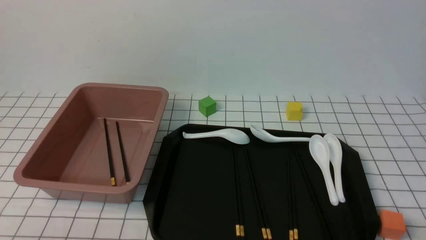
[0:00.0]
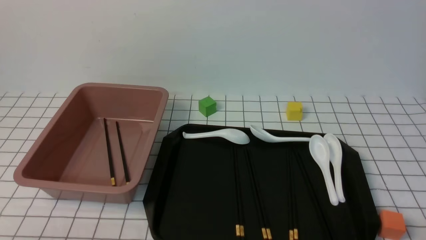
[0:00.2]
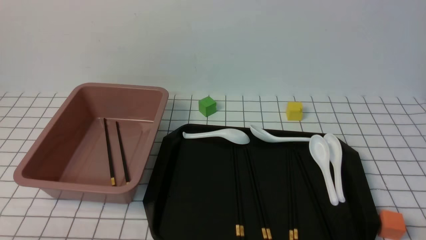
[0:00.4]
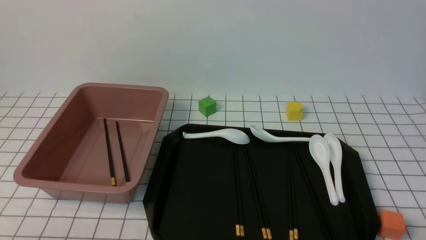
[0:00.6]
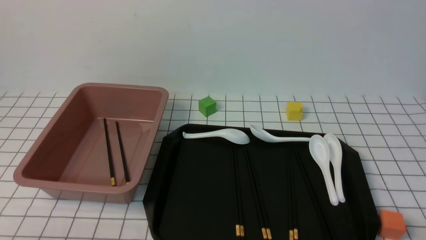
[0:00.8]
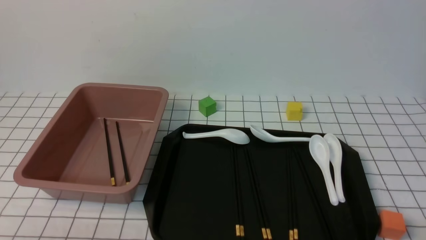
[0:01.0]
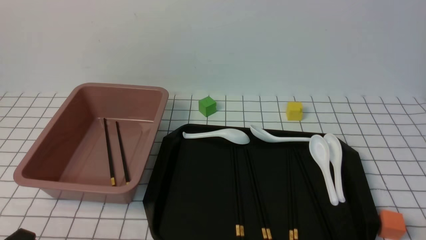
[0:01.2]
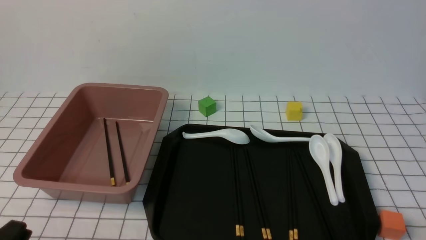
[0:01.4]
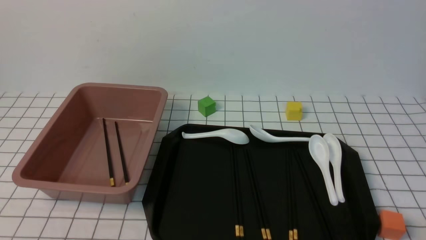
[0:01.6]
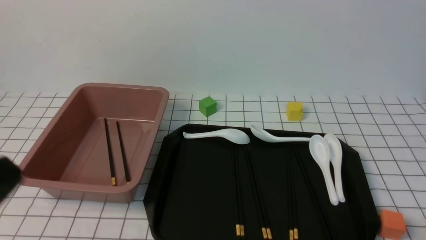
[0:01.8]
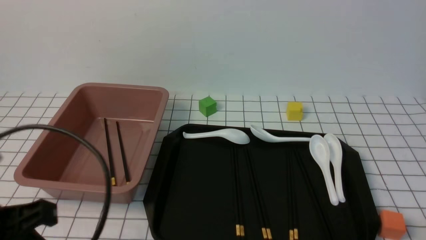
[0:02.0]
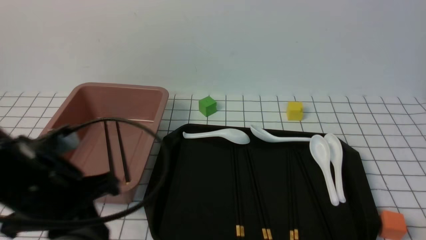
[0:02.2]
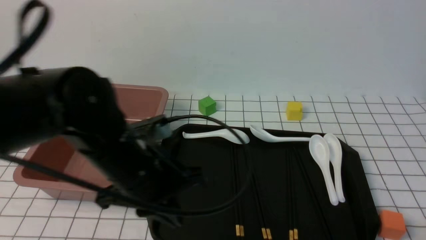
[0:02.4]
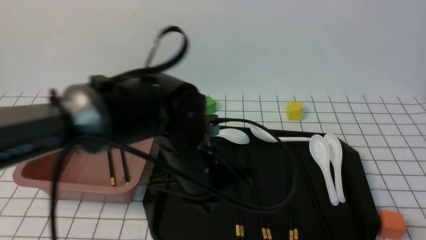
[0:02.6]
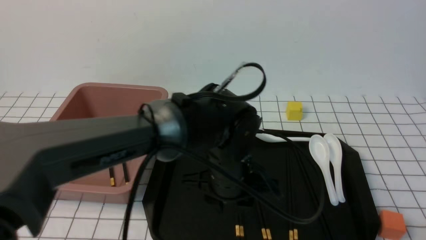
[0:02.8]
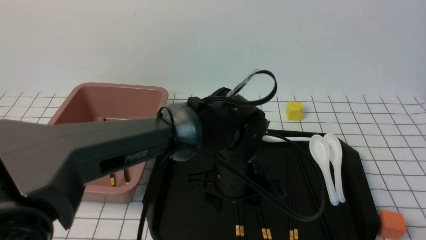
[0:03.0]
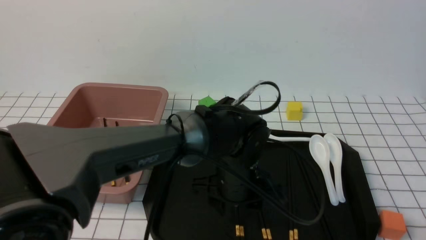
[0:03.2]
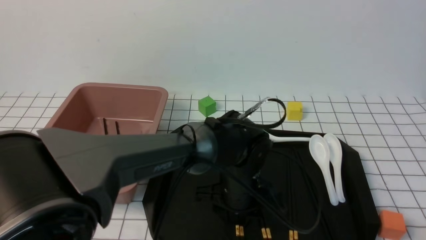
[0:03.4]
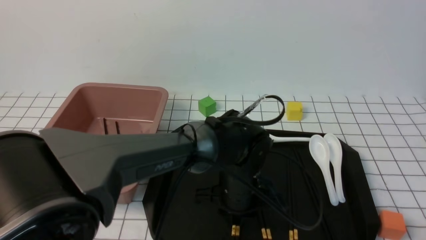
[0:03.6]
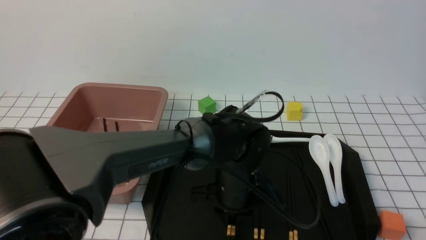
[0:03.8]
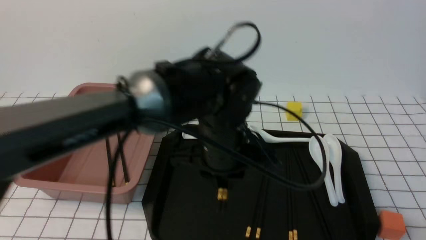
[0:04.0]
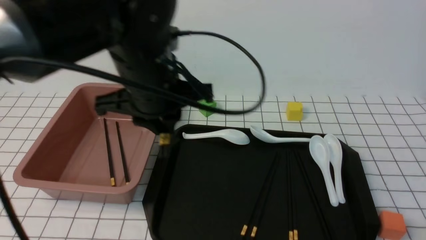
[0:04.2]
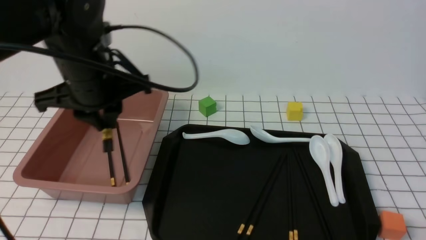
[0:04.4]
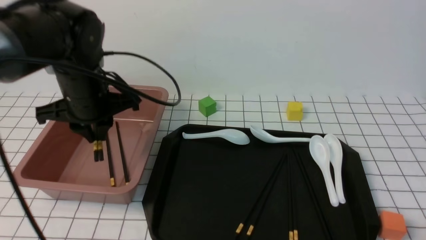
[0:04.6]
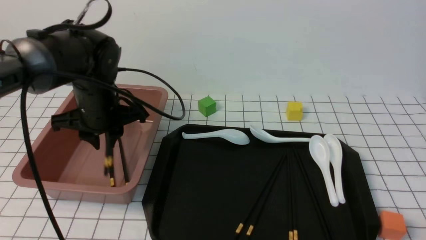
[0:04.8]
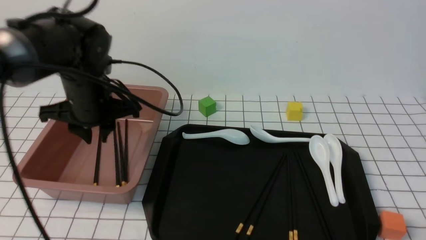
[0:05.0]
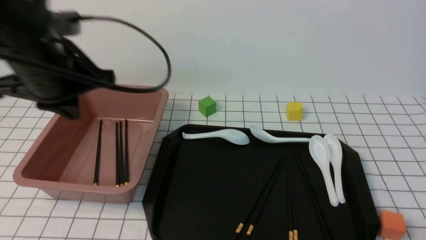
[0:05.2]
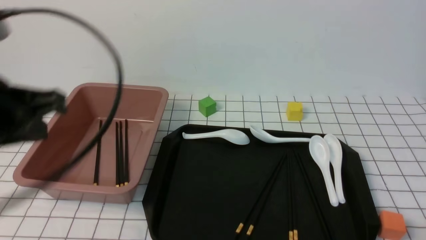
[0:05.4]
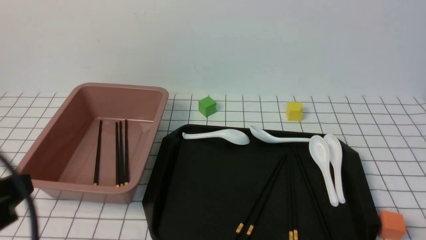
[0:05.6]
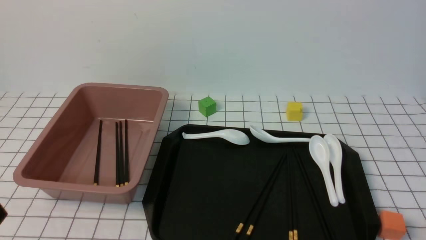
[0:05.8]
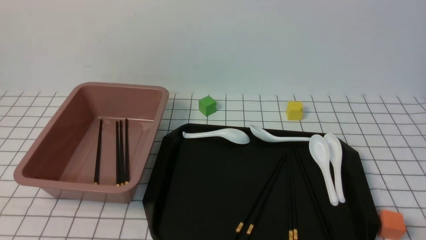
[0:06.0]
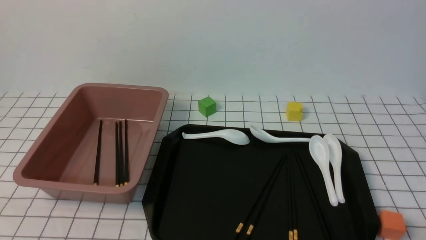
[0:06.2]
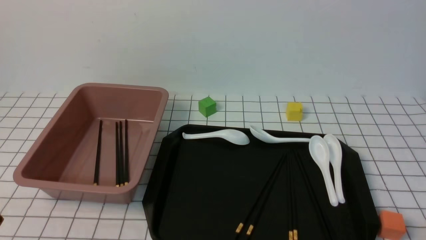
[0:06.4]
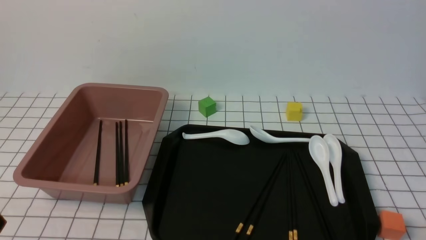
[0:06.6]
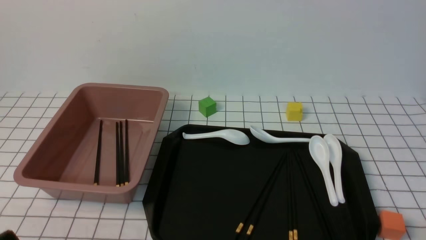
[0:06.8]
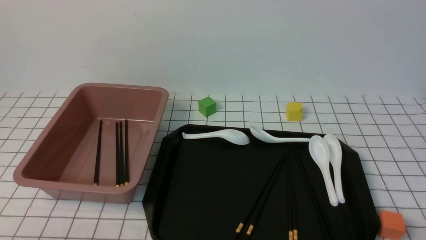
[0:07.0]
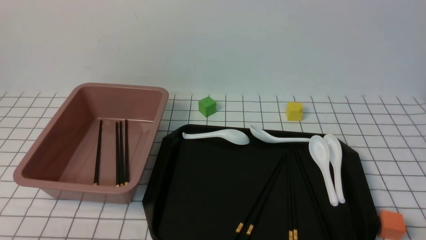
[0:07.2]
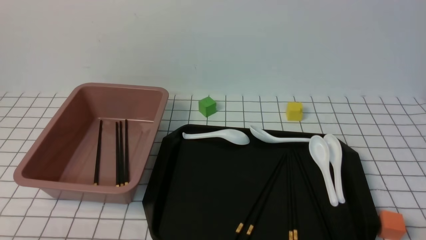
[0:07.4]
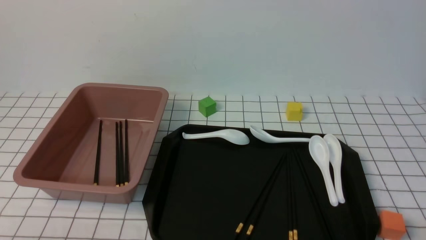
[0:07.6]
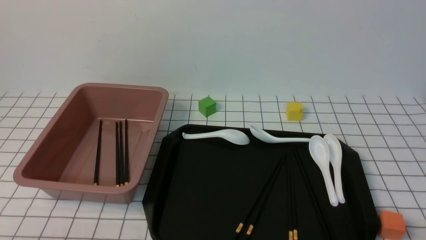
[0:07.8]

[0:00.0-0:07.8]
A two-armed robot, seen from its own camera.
Step, 0:00.0 to 0:04.0: use the left arm to grab a pair of chopsticks.
Step, 0:04.2 to 0:05.2: use the left arm to put the chopsticks into the lunch box.
0:01.6 to 0:03.2: The left gripper goes approximately 40 cm to the right and forward, and opens its fingers.
0:03.2 to 0:04.6: The left gripper travels to the left and upward by roughly 25 cm, and closes.
0:04.6 to 0:06.2: The left gripper shifts about 30 cm backward, and closes its fingers.

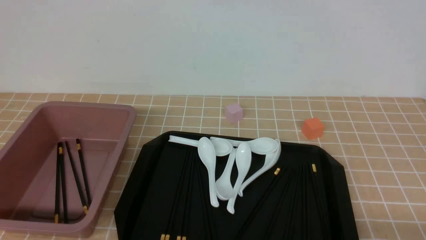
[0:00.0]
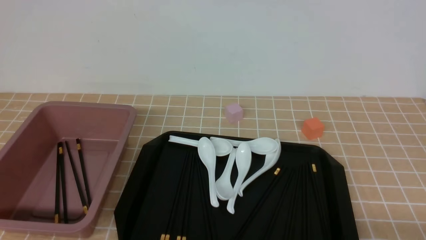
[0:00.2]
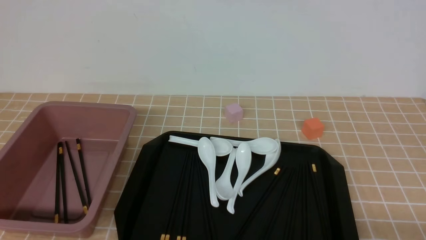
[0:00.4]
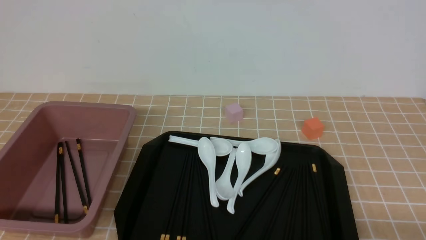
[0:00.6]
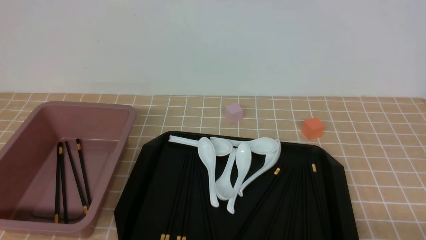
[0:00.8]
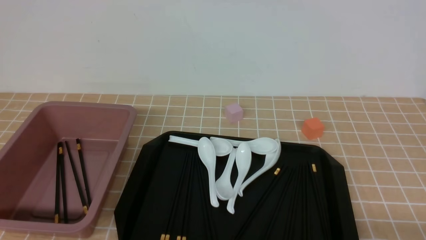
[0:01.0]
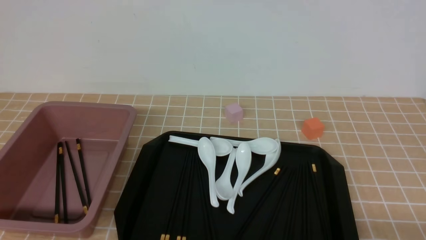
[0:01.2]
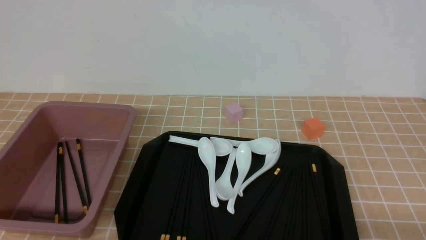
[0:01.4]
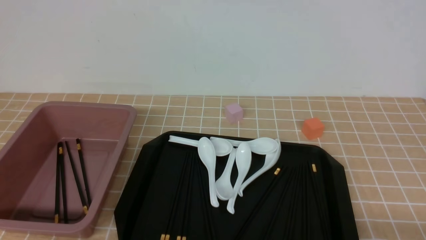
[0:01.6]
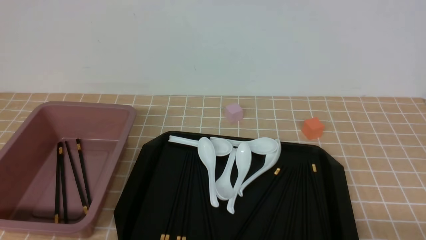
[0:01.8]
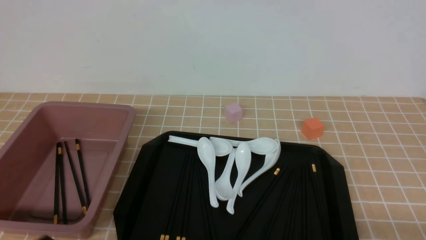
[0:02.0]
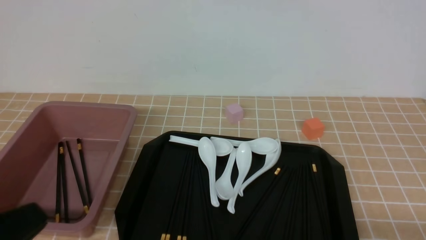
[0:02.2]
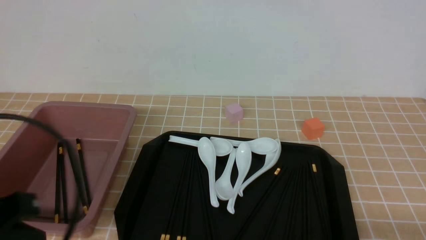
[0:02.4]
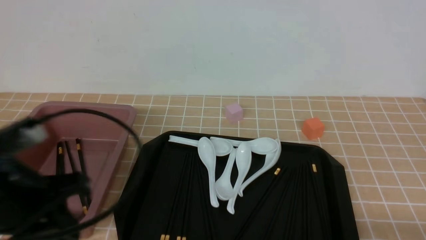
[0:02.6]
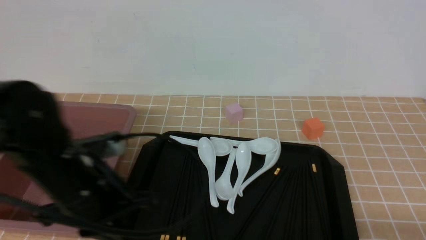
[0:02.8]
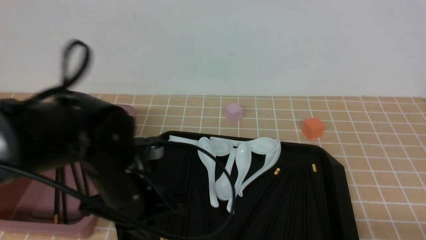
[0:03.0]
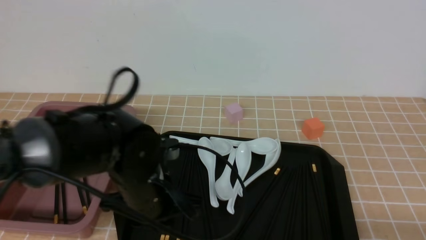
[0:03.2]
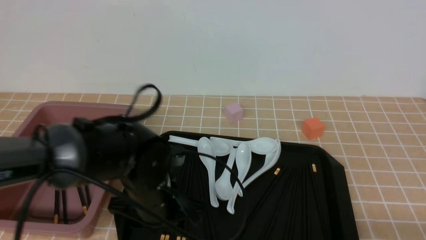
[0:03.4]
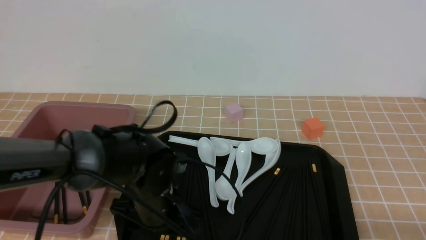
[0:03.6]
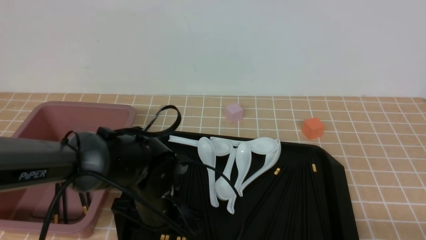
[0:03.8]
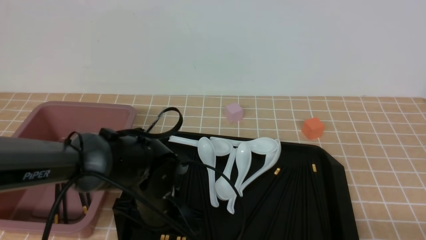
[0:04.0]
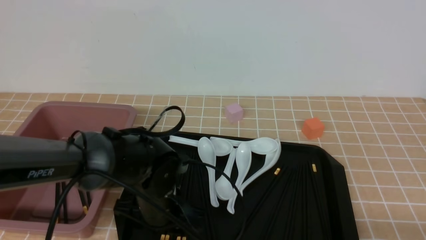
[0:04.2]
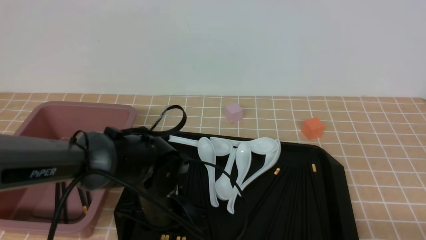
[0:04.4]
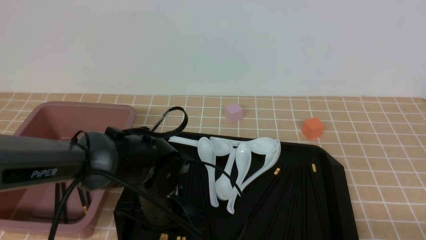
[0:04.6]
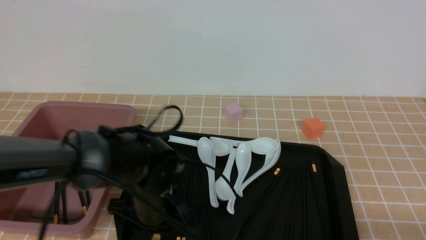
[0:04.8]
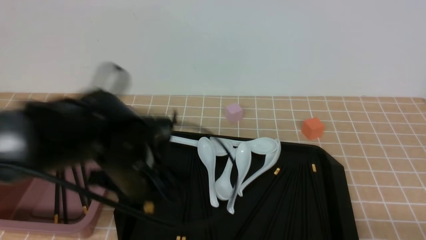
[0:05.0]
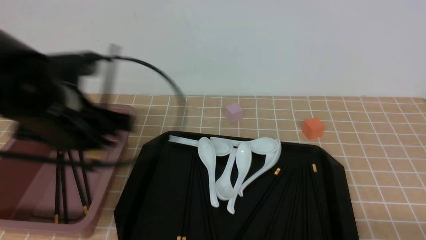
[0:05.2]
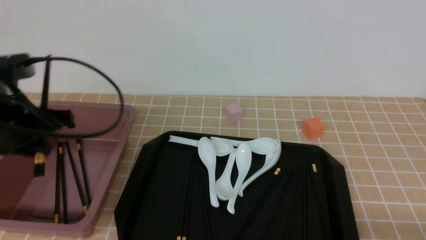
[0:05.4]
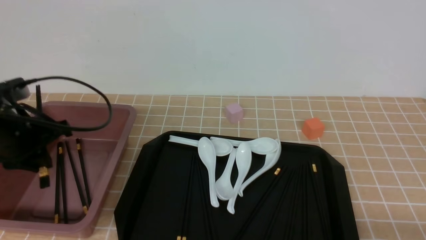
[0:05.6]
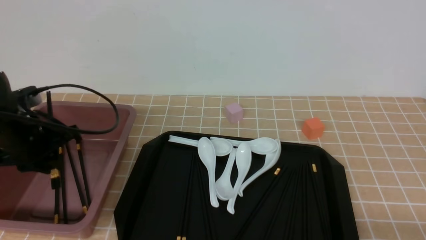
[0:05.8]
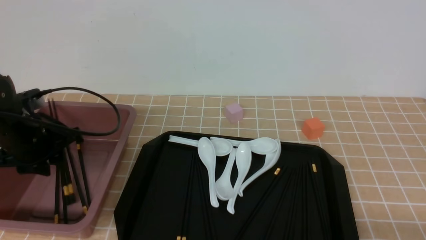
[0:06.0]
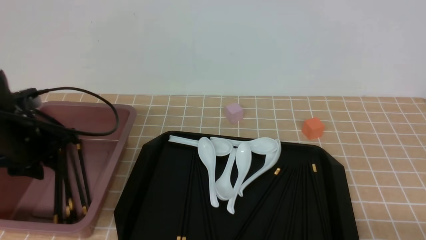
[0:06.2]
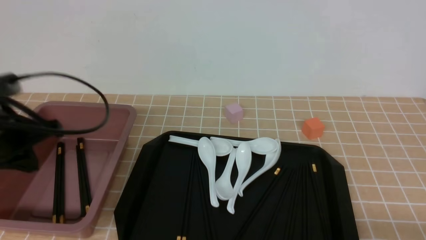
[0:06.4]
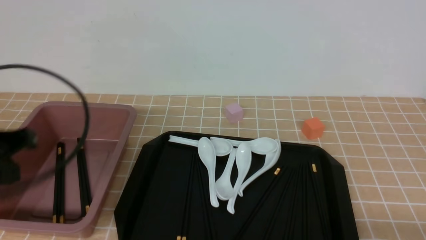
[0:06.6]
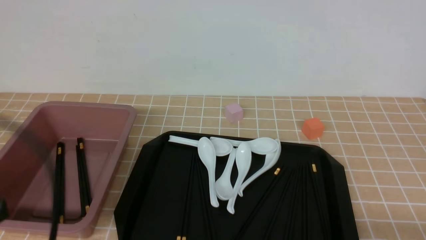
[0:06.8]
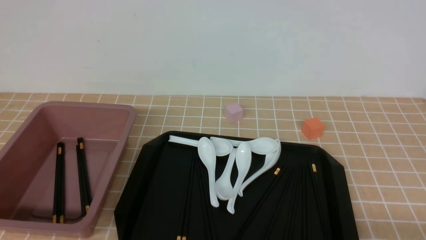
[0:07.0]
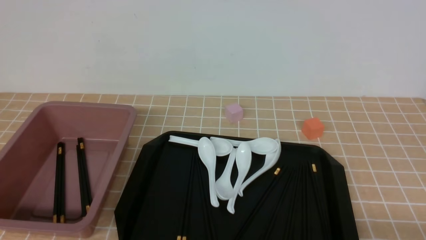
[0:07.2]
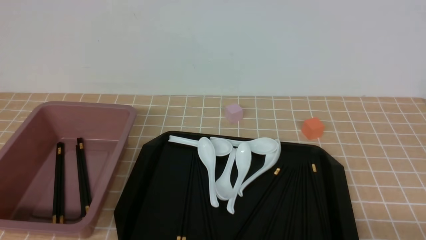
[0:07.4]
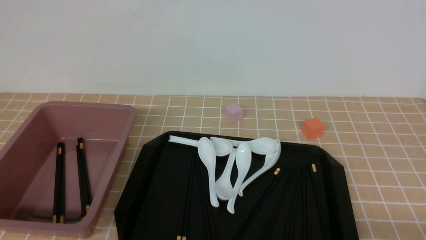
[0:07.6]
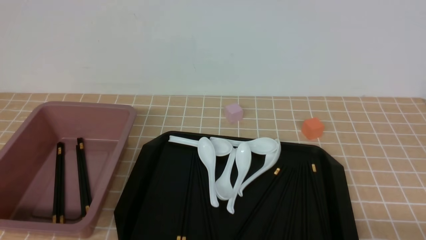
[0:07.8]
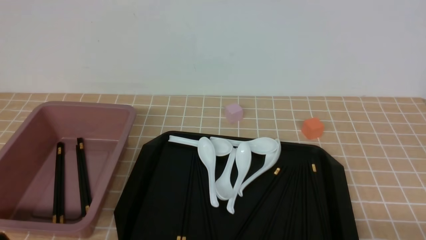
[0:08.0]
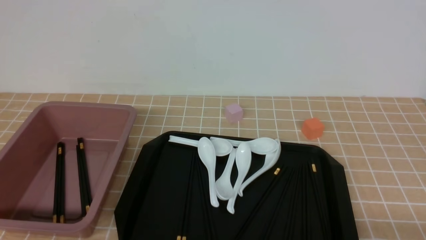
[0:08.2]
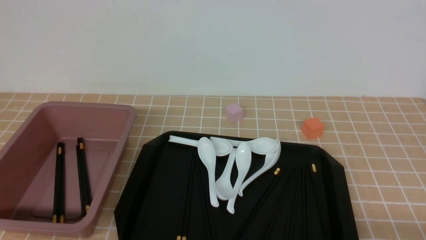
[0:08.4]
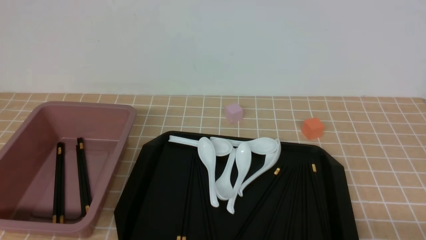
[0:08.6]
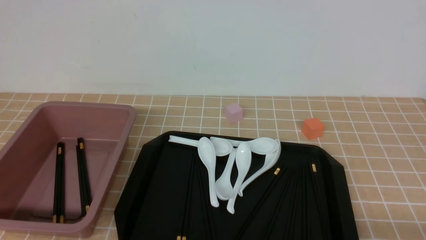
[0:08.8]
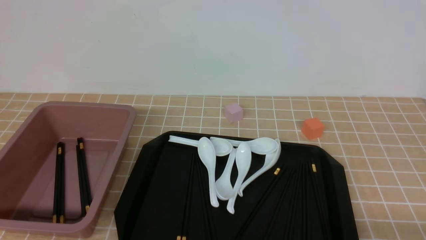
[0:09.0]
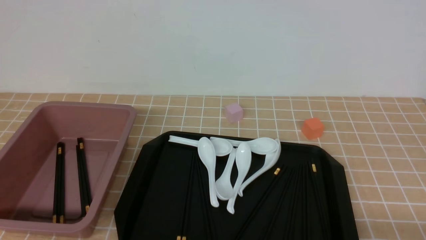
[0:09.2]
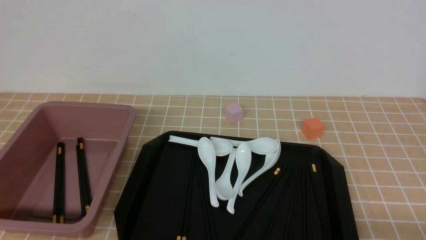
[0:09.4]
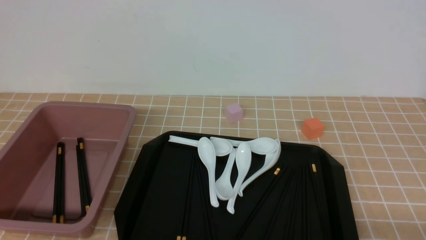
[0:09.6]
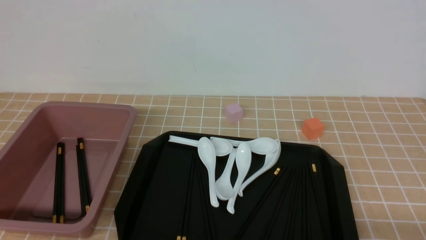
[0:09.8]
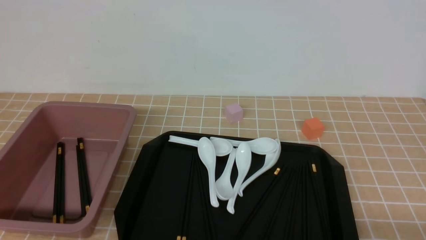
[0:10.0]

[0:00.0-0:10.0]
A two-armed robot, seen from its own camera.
Step, 0:00.0 to 0:04.8: use the left arm to grab a pair of chopsticks.
Step, 0:05.0 to 0:06.2: use the left arm to put the chopsticks into the lunch box.
0:01.4 to 0:02.8: The left gripper shifts roughly 20 cm forward, upward and to the right.
0:02.8 to 0:04.2: The left gripper goes some 20 cm downward, to the right and forward, and opens.
0:04.2 to 0:05.8: The left gripper moves to the left and upward, roughly 20 cm, and closes up.
0:05.8 to 0:07.2: The left gripper moves backward, about 30 cm, and closes.
0:08.6 to 0:10.0: Neither gripper changes place.
